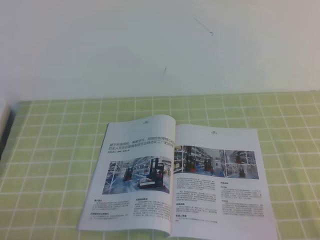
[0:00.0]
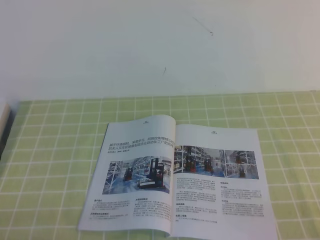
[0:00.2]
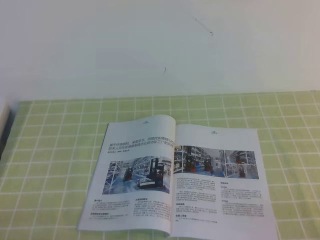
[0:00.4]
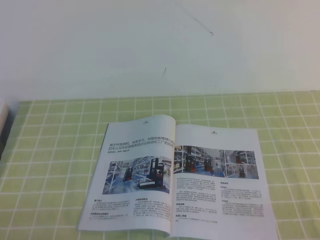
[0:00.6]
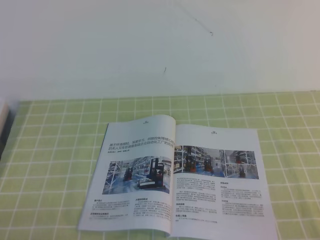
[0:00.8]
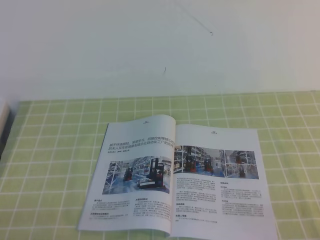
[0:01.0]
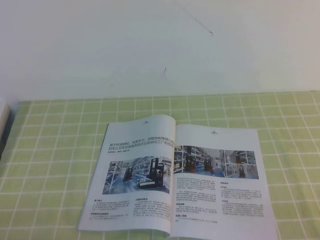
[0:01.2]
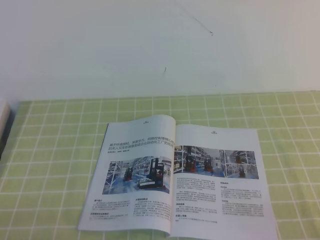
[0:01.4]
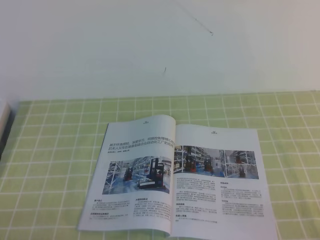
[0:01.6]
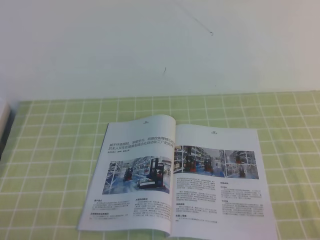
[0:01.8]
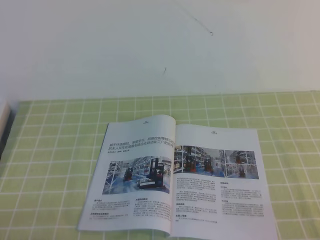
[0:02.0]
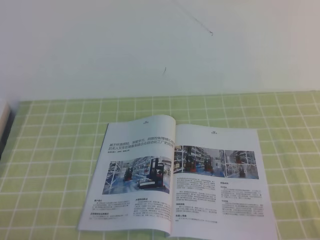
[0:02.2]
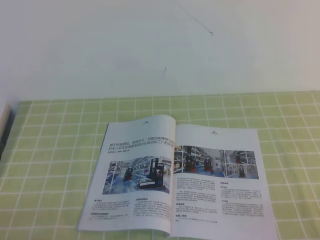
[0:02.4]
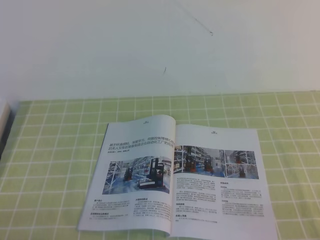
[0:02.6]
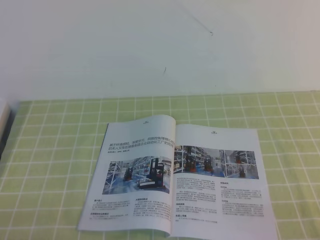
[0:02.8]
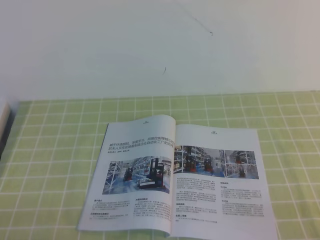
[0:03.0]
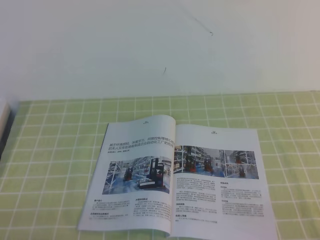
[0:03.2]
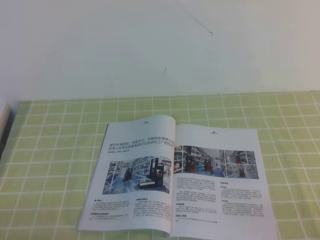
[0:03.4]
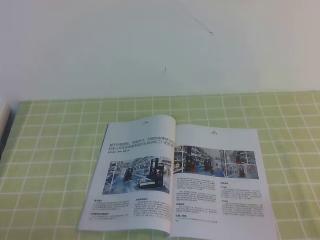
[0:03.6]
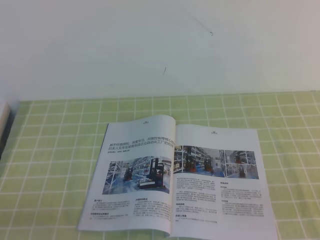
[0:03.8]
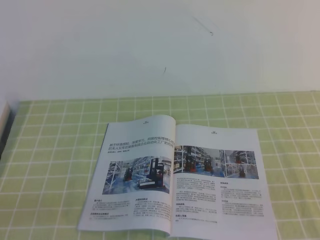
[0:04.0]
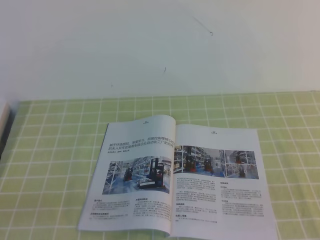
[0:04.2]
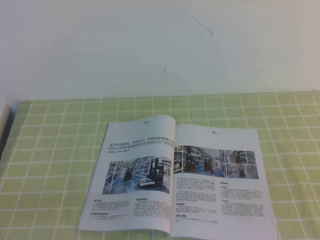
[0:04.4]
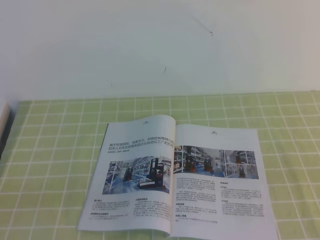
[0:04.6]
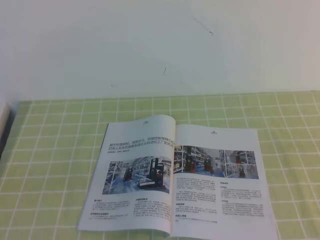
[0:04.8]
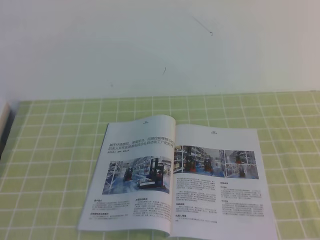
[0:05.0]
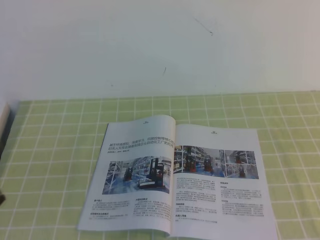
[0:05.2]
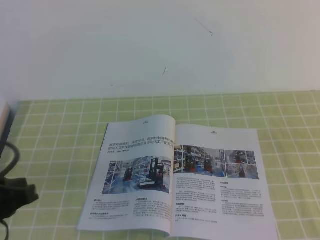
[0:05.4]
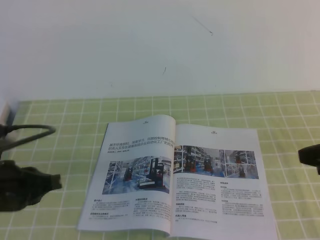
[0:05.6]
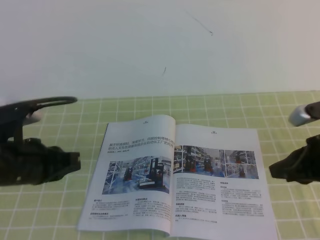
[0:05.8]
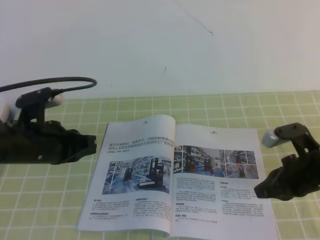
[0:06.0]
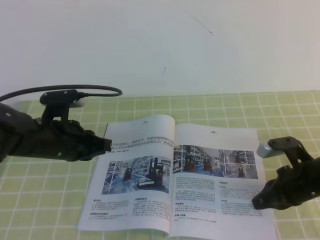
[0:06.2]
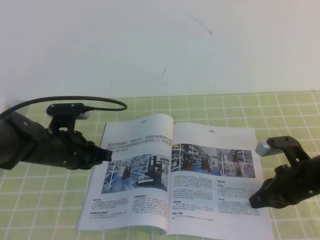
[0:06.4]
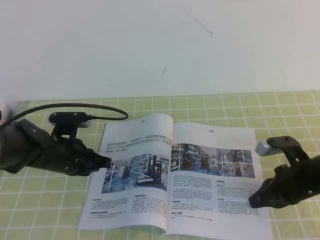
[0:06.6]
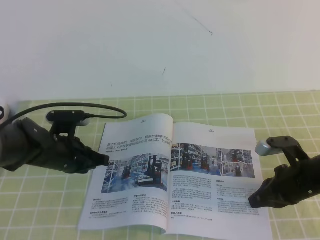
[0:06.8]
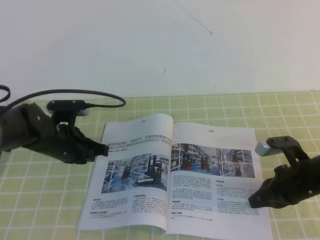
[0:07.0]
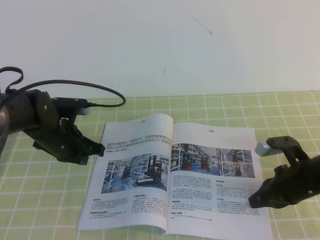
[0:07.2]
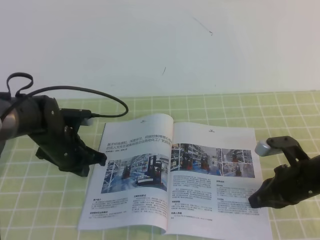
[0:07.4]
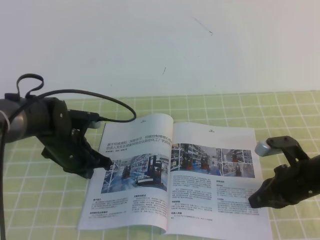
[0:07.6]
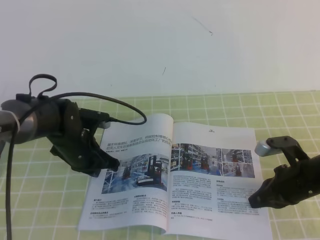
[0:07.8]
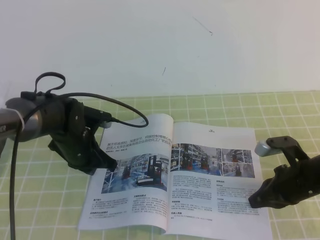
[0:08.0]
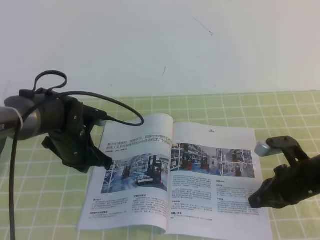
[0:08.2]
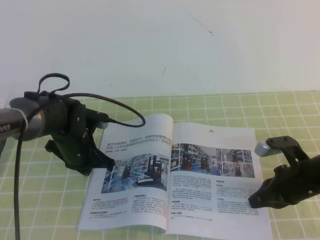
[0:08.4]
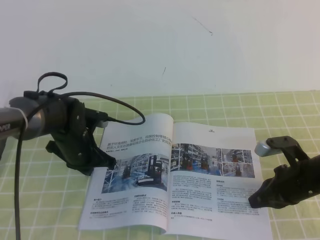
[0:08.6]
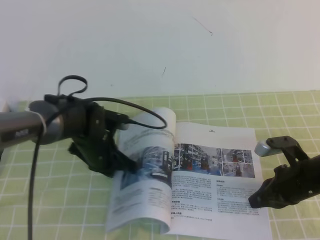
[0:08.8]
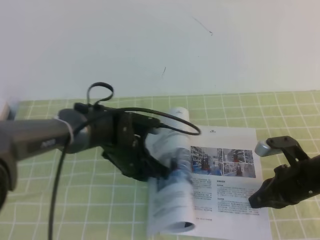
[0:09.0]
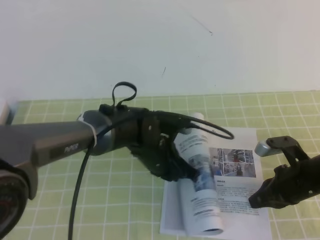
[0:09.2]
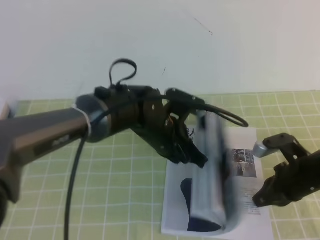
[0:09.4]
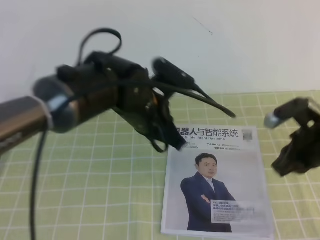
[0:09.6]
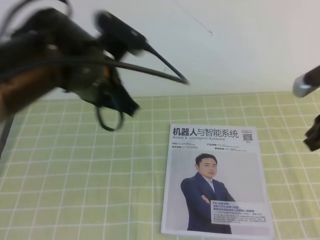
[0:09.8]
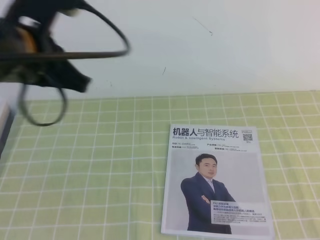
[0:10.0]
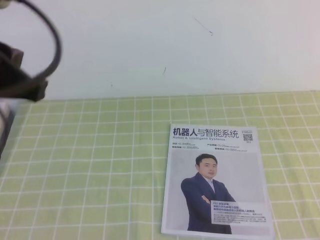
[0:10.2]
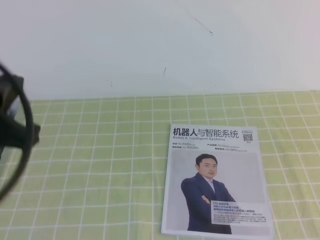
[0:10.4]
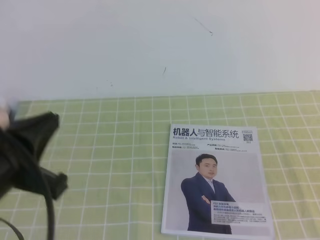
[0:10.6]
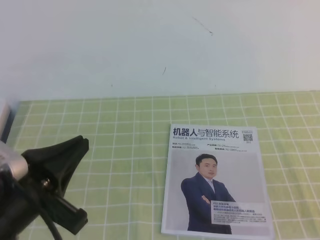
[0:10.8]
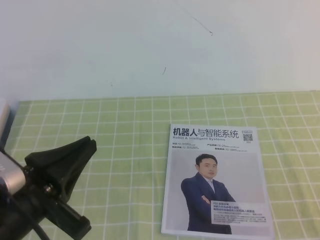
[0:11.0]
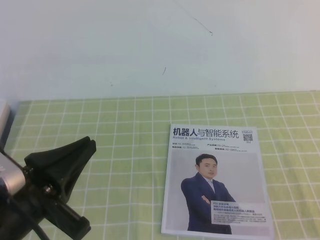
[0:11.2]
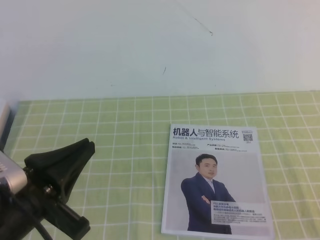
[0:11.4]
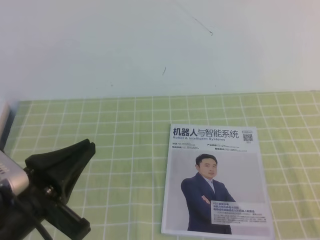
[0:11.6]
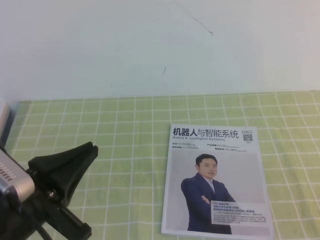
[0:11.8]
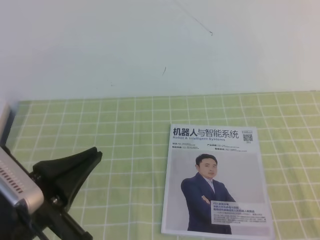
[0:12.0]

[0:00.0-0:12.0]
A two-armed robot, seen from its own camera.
Task of the whole recording: on the green tablecloth, hold the book with one hand and close it with the other.
0:00.0 to 0:03.0: Both grippers stay put.
0:04.4 to 0:06.0: The right gripper travels forward and downward by roughly 25 cm. The left gripper goes some 25 cm forward.
0:06.0 to 0:07.6: The right gripper heads downward, covering some 5 cm. The left gripper moves forward and downward, roughly 10 cm.
0:07.6 to 0:09.0: The left gripper travels to the right by about 10 cm.
0:09.0 to 0:10.4: The right gripper is displaced upward and backward by some 30 cm. Meanwhile the left gripper shifts about 35 cm upward, backward and to the left.
0:10.4 to 0:12.0: The left gripper moves downward, roughly 10 cm, while the right gripper shifts approximately 15 cm downward and backward.

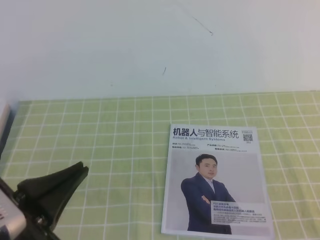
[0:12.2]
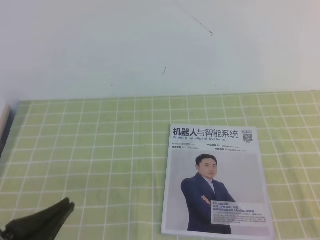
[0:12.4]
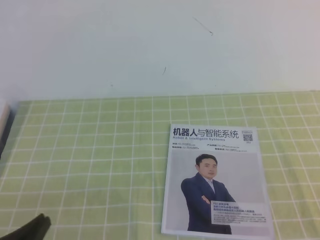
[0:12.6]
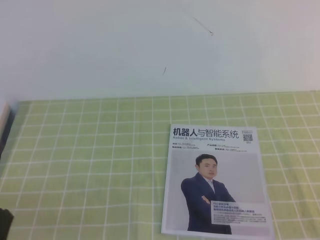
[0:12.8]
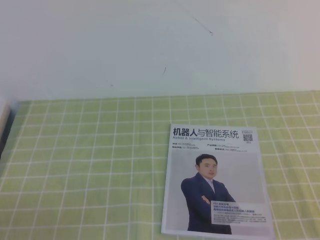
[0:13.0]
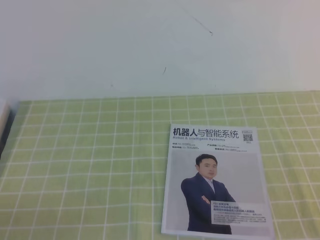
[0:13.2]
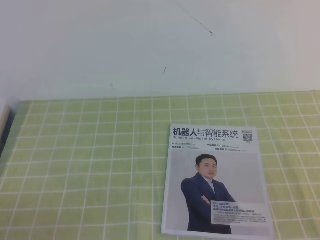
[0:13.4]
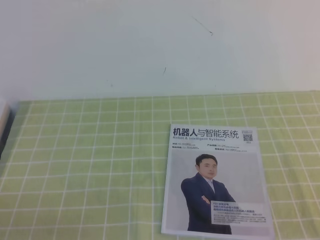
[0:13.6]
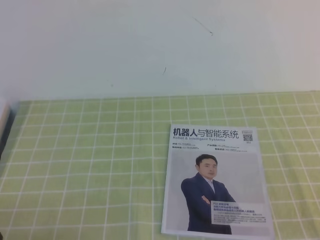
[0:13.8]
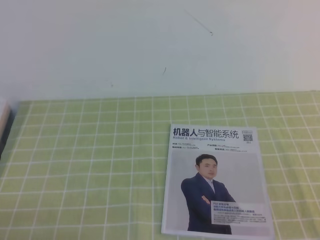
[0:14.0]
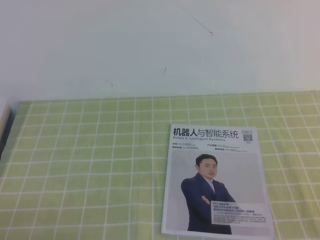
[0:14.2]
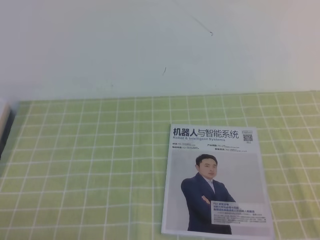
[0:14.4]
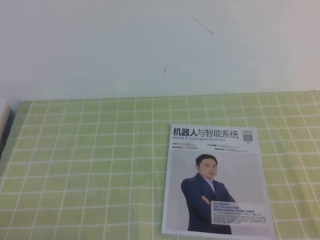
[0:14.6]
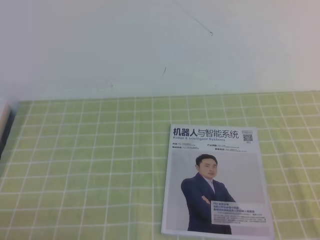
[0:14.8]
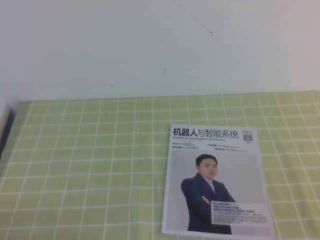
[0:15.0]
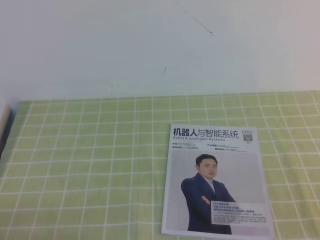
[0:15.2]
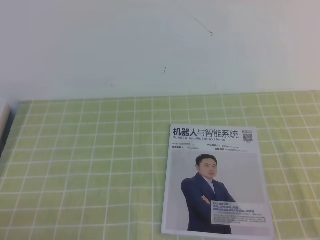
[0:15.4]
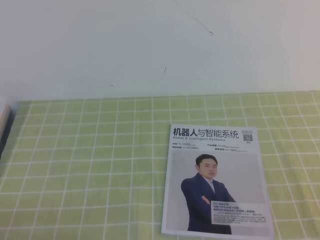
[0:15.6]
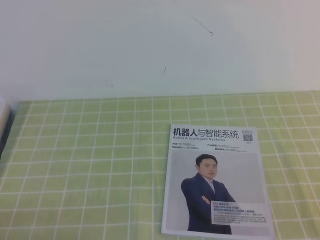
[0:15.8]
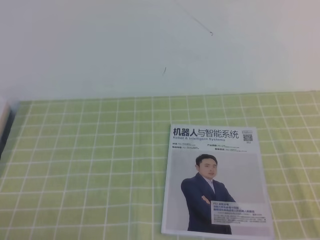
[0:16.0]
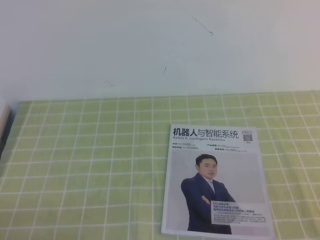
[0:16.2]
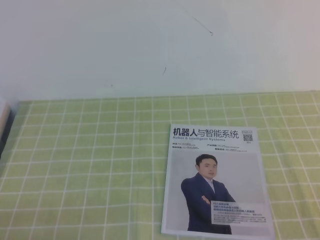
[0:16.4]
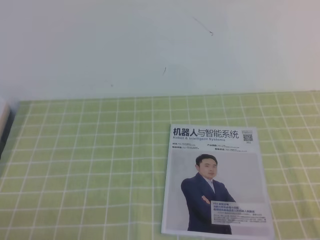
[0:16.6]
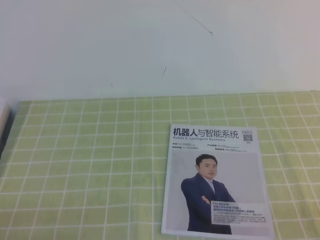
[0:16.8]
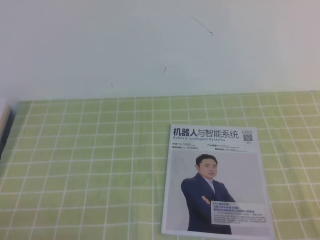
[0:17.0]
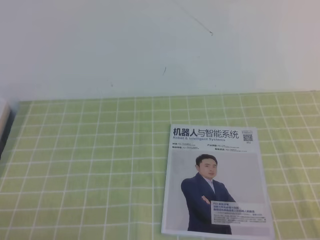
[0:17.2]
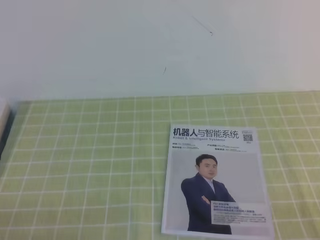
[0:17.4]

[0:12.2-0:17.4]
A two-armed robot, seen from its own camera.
Task of the whole recording: on the green tablecloth, hold the book with one hand and close it with the other.
Step, 0:12.2 to 0:17.4: Close the open book.
0:12.2 to 0:14.0: The left gripper shifts some 15 cm downward, to the left and backward.
0:14.0 to 0:15.6: Neither gripper changes place.
